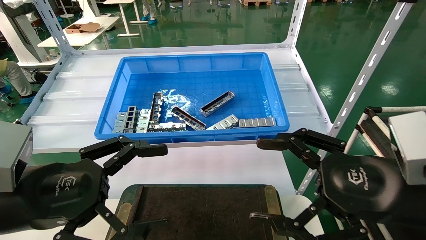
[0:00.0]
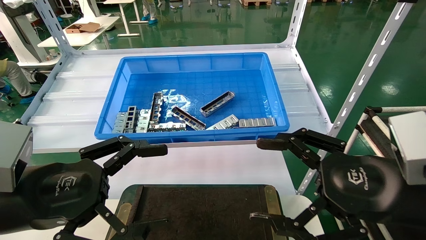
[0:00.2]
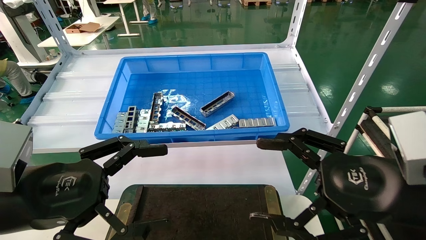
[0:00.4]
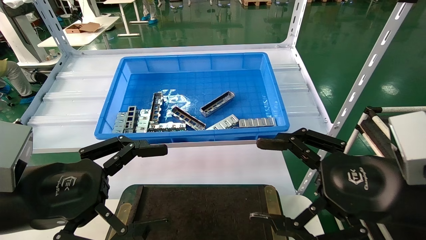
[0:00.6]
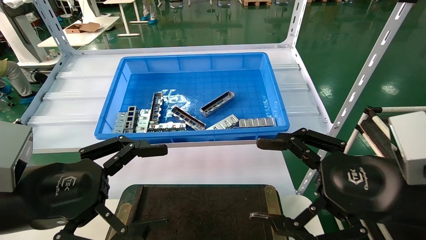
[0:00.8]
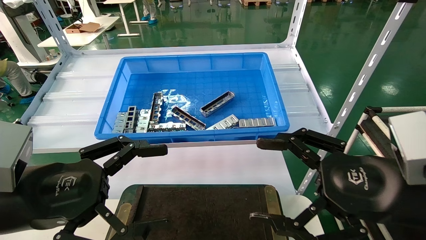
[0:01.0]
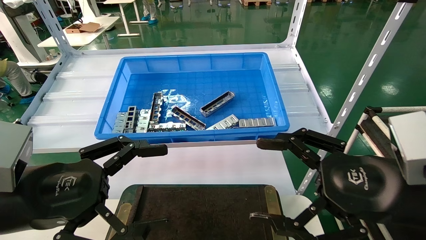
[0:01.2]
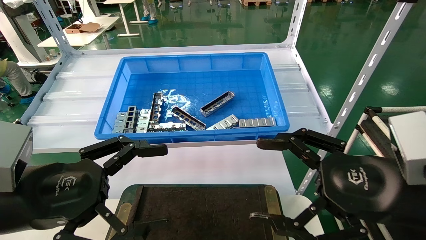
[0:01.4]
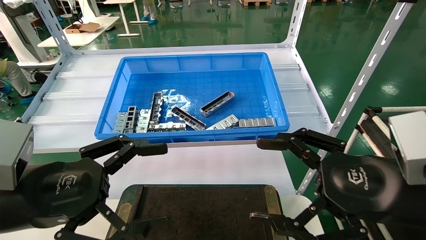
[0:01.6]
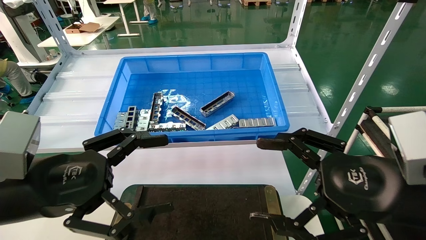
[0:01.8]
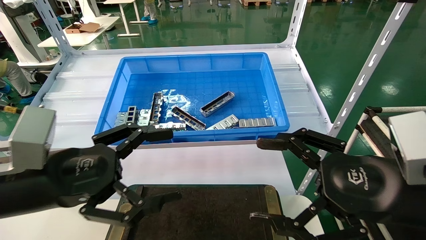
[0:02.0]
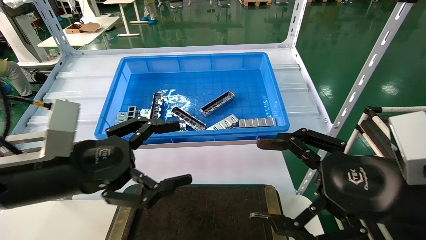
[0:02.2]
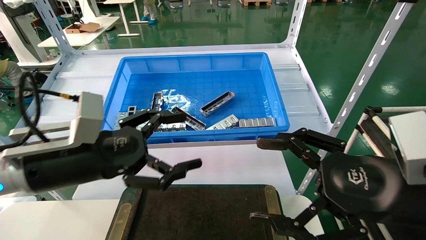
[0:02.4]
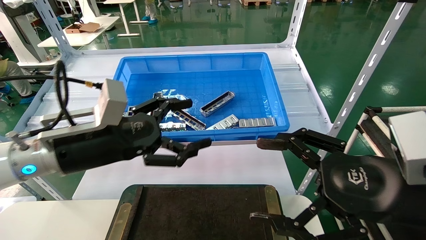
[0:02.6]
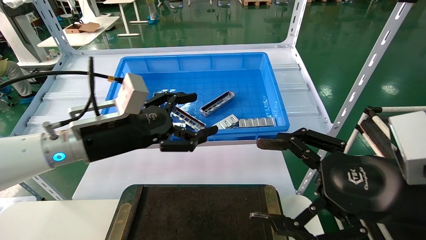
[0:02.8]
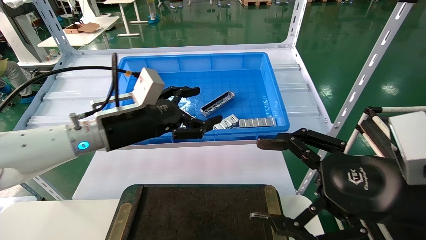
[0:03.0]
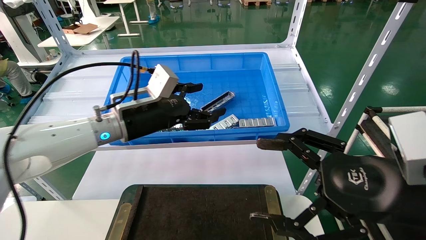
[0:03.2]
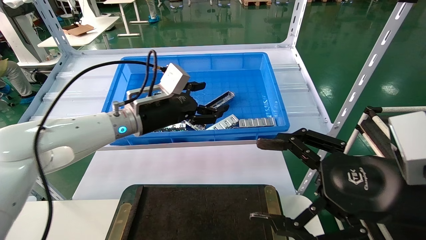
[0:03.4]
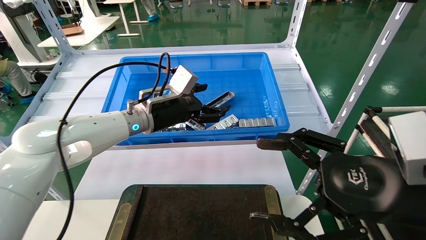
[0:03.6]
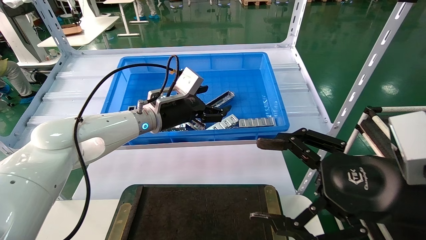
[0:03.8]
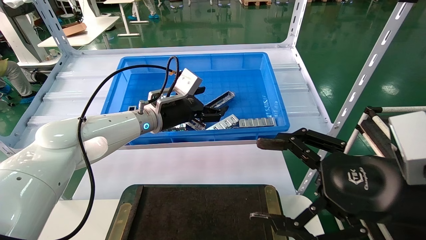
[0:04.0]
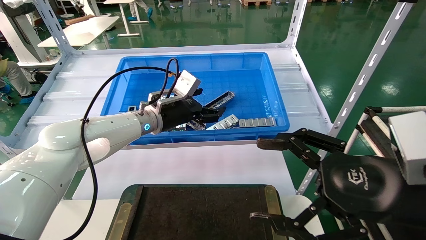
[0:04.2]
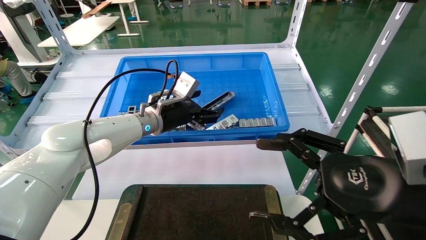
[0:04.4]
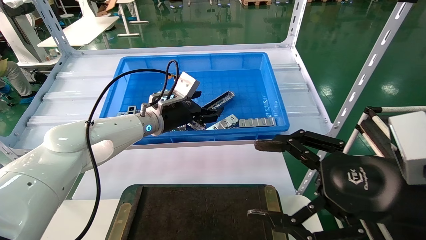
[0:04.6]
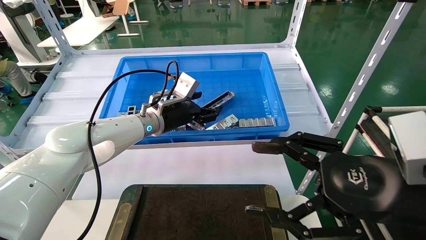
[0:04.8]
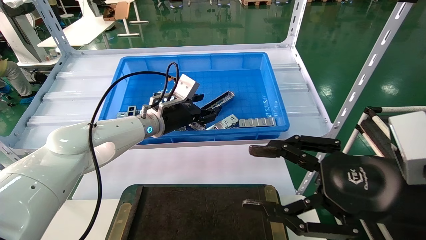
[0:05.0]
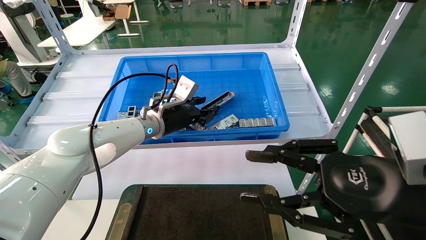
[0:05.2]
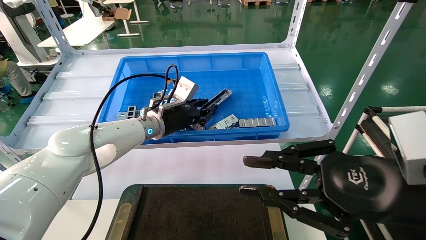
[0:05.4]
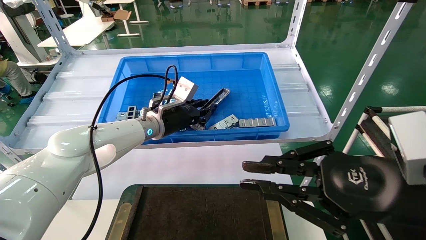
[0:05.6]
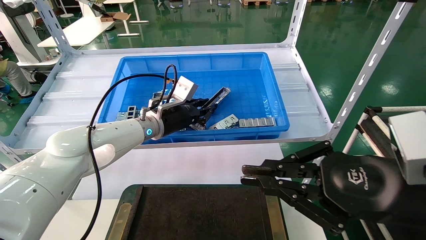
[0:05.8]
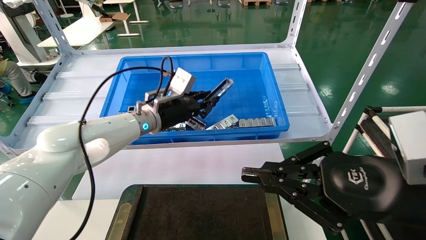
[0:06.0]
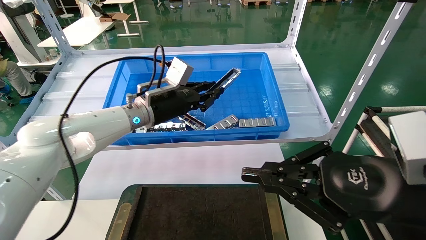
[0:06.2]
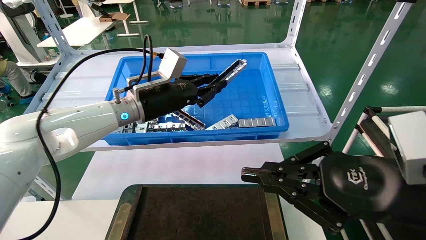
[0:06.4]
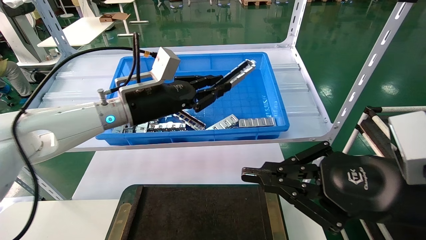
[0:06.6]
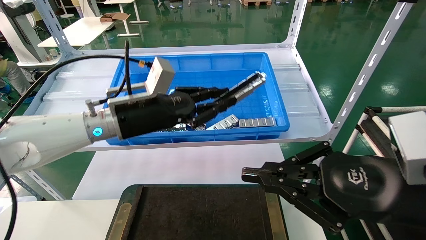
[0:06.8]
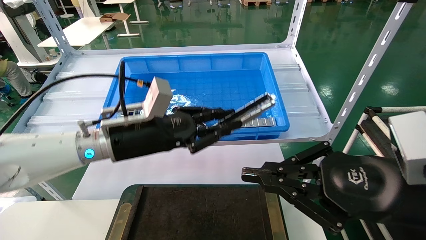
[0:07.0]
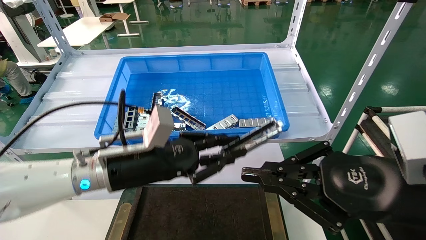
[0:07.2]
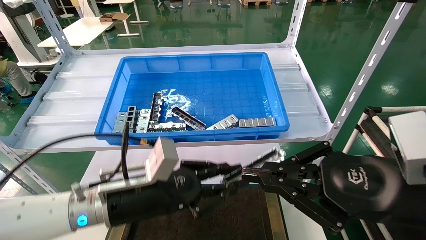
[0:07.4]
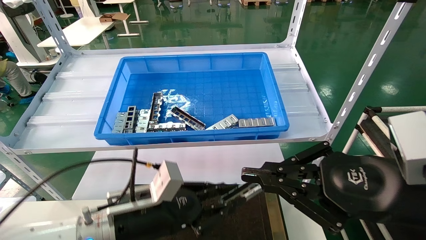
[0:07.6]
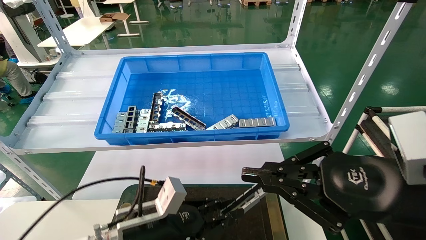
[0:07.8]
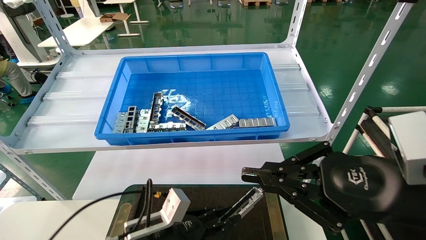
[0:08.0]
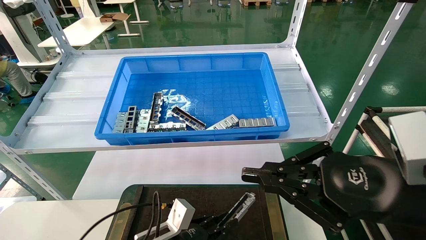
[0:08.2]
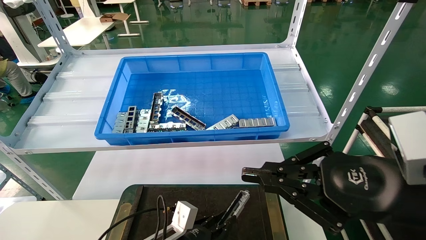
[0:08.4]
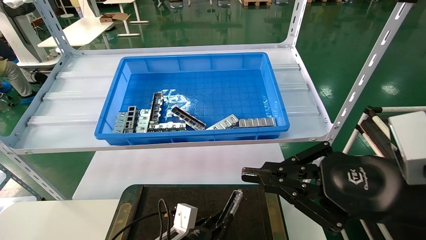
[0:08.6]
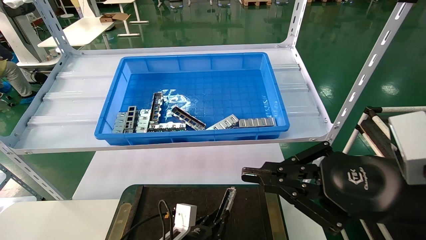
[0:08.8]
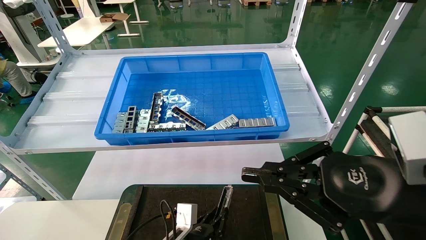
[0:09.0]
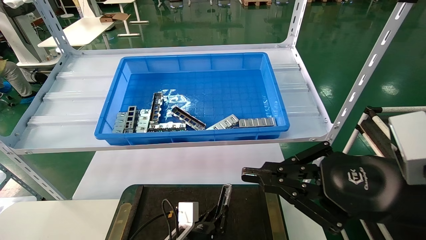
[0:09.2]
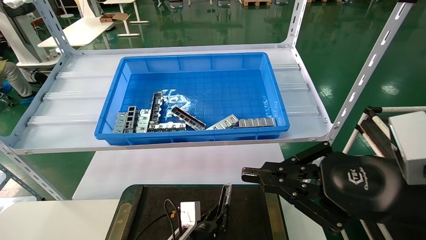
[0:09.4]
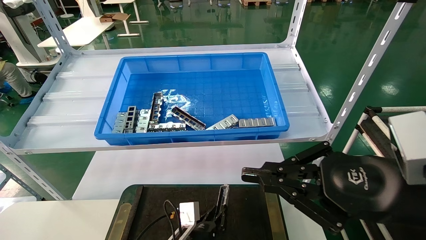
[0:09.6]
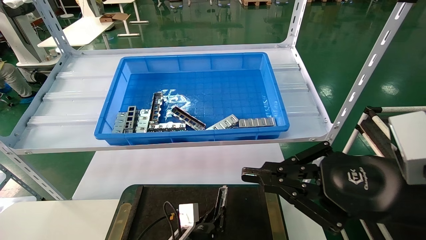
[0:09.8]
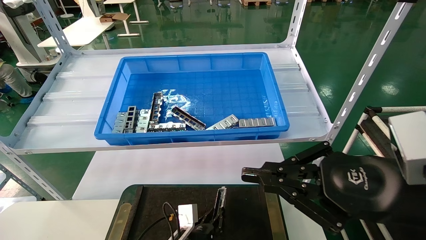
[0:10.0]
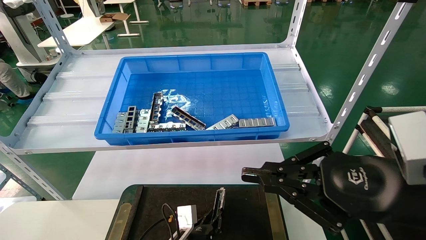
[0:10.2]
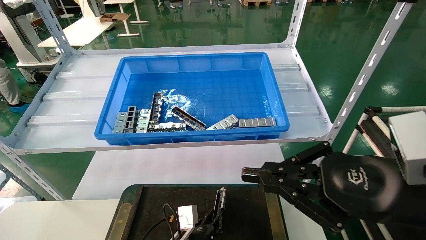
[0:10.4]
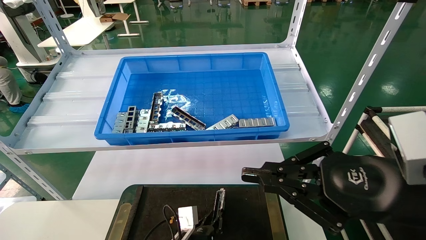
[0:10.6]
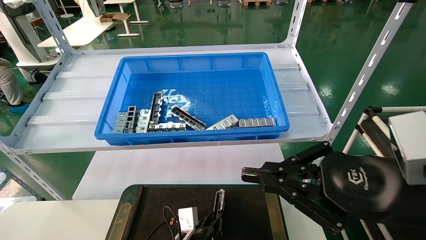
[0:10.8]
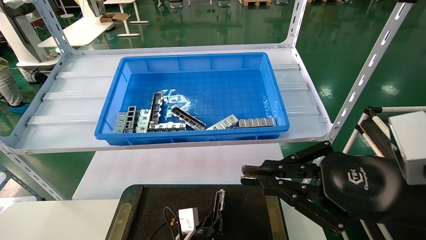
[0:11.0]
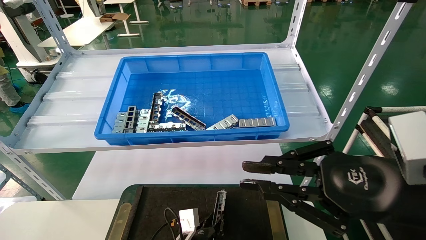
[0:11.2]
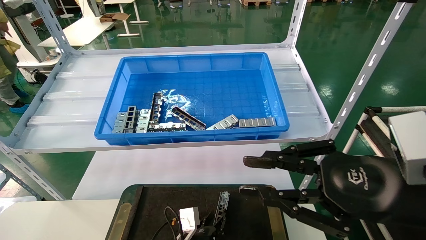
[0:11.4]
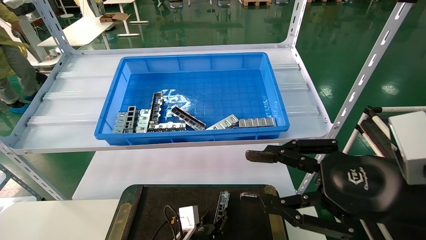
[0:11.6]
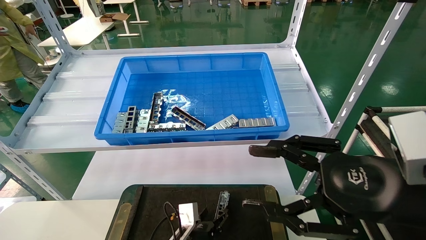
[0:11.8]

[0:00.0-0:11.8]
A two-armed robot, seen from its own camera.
Task of the whole recording: Grasp the part with one hand and place it on the black container.
Step, 0:01.8 to 0:05.4: Pick up the front USB bracket from the feeding area.
Step, 0:05.6 to 0:11.2: Place the front USB bracket into the box.
0:00.0 to 0:01.4: Both grippers stay about where they are.
0:01.4 to 0:03.0: The left gripper heads forward and to the right, covering about 20 cm.
0:03.0 to 0:04.4: The left gripper moves forward and to the right, roughly 15 cm.
0:04.4 to 0:06.0: The right gripper closes up; the left gripper closes.
0:06.0 to 0:07.4: The left gripper is displaced backward and downward by approximately 20 cm.
0:07.4 to 0:08.8: The left gripper is displaced downward by about 20 cm.
0:08.8 to 0:10.4: The left gripper changes place by roughly 5 cm.
0:10.4 to 0:11.8: The left gripper opens its fingers, while the right gripper opens its fingers.

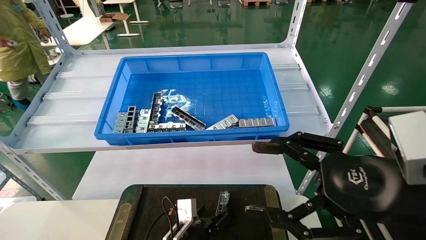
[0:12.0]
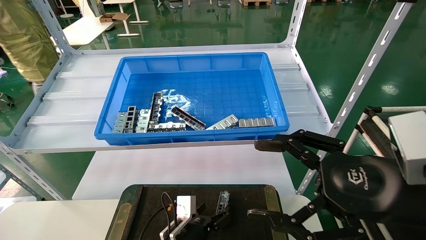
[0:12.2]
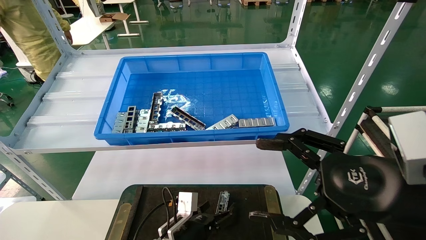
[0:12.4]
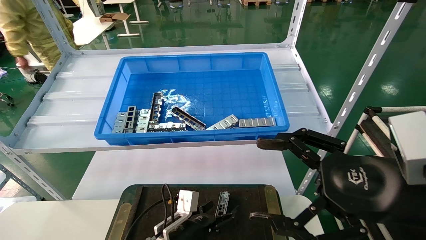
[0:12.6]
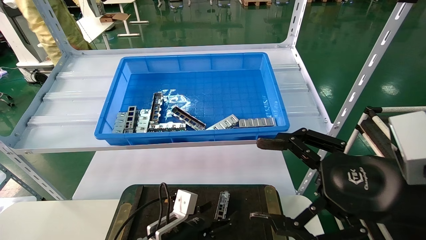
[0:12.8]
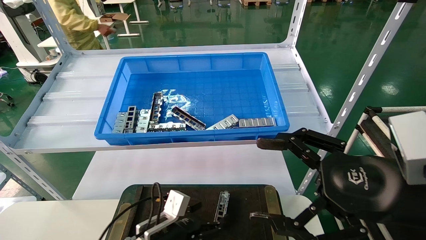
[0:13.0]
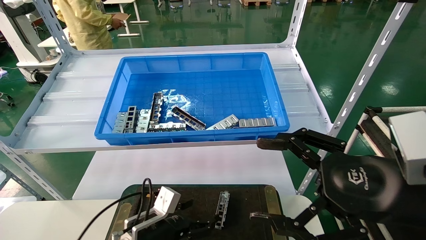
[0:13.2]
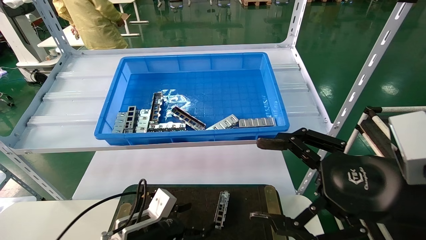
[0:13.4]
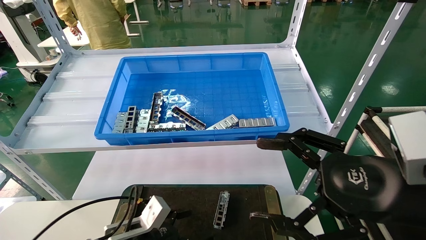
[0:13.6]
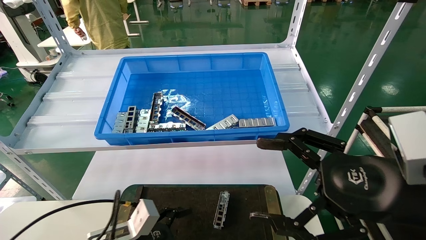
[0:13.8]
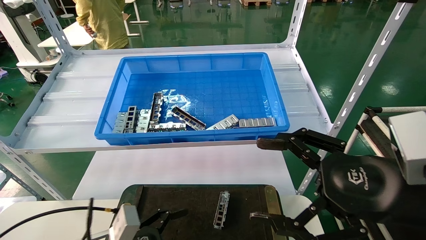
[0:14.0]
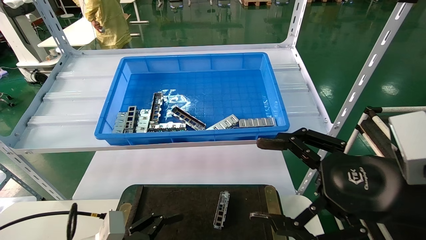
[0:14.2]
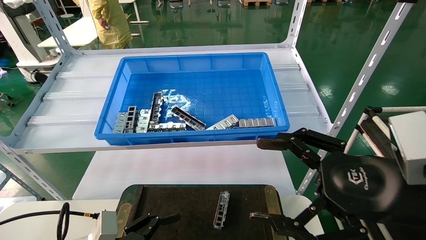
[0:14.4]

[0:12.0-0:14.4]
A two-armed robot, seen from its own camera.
Task of the whole recording: Grasp the part with one hand and place it on the black container.
0:12.0 to 0:13.2: The left gripper moves to the left and upward, about 10 cm.
0:13.2 to 0:14.4: The left gripper moves backward and to the left, some 10 cm.
